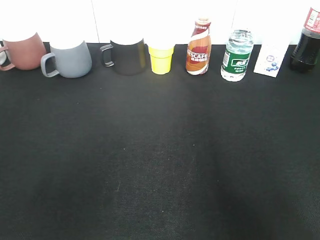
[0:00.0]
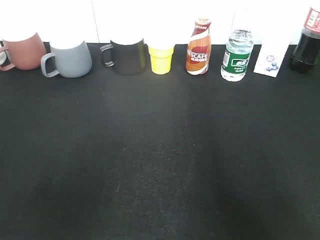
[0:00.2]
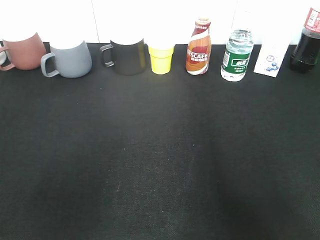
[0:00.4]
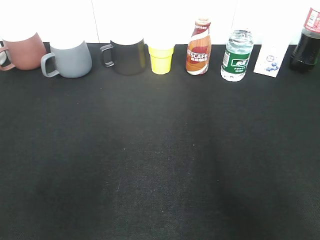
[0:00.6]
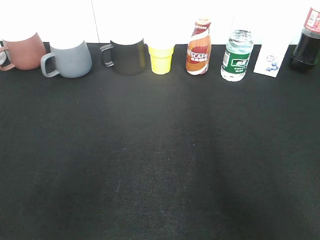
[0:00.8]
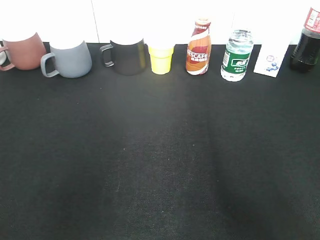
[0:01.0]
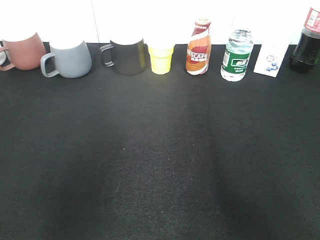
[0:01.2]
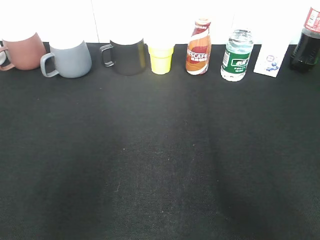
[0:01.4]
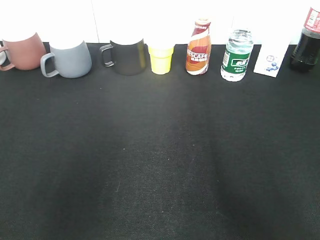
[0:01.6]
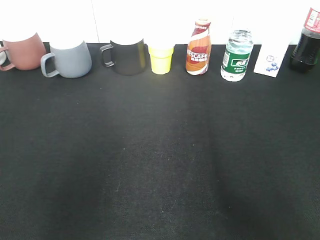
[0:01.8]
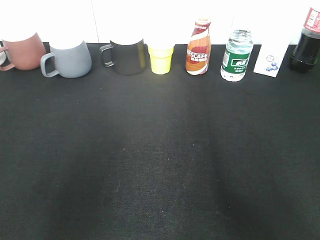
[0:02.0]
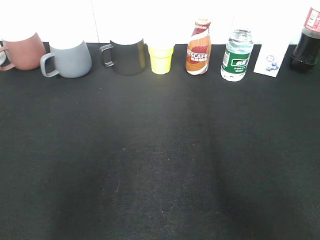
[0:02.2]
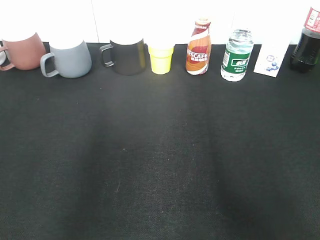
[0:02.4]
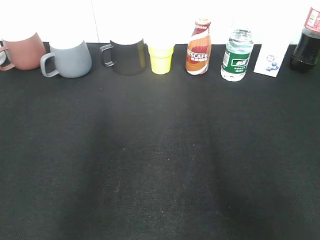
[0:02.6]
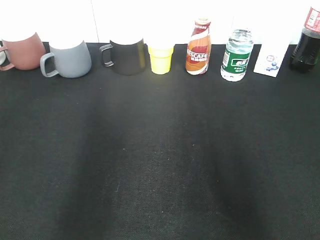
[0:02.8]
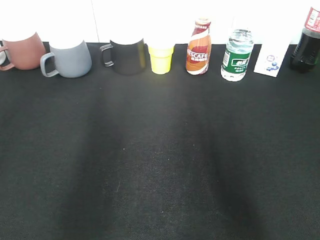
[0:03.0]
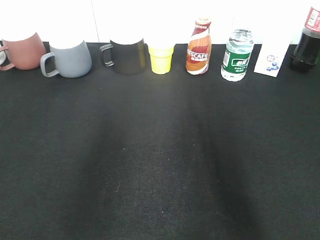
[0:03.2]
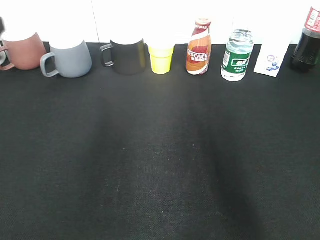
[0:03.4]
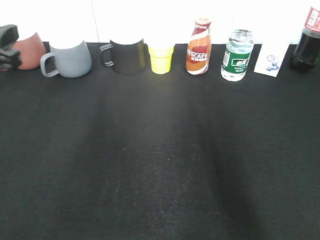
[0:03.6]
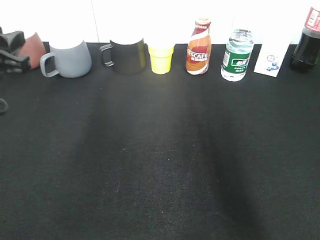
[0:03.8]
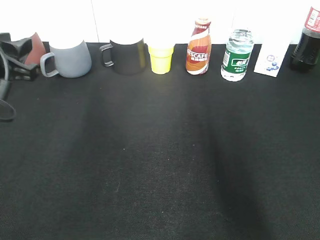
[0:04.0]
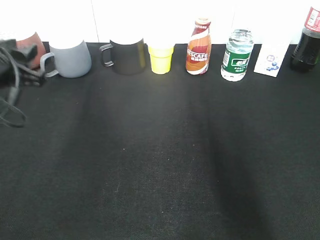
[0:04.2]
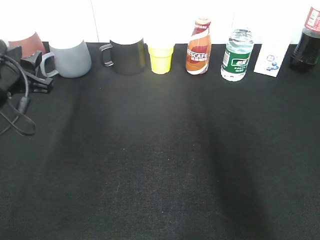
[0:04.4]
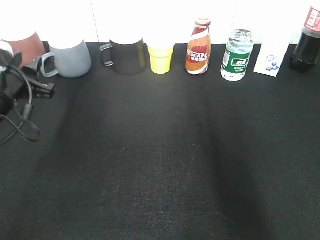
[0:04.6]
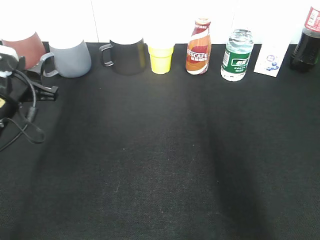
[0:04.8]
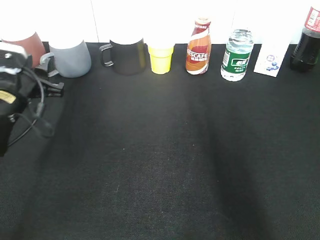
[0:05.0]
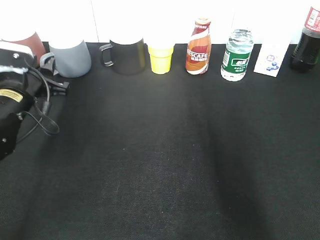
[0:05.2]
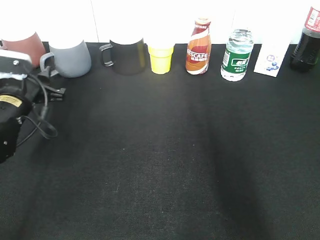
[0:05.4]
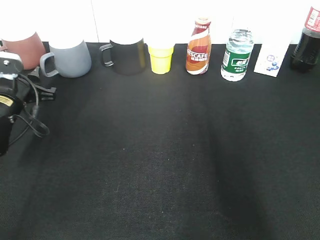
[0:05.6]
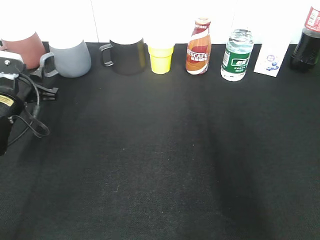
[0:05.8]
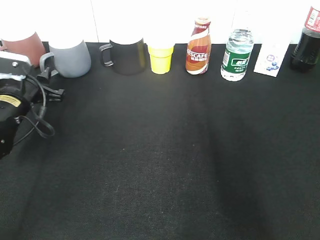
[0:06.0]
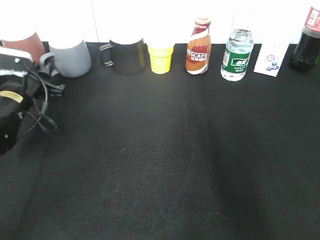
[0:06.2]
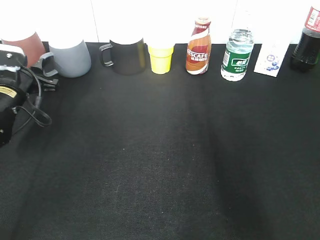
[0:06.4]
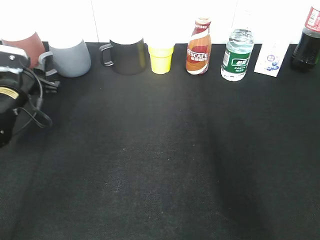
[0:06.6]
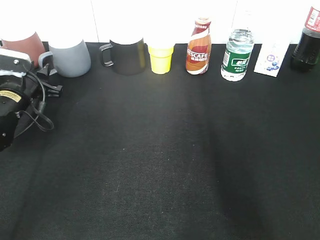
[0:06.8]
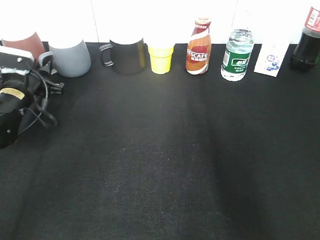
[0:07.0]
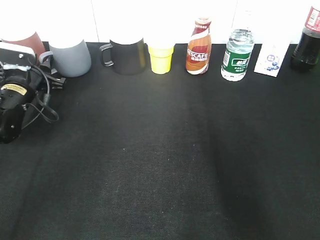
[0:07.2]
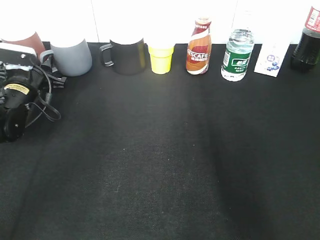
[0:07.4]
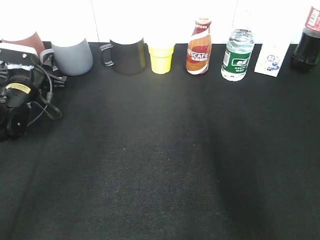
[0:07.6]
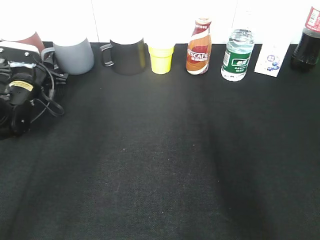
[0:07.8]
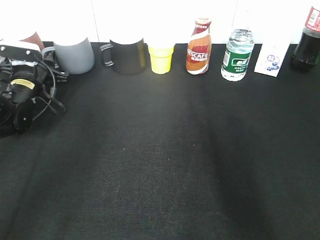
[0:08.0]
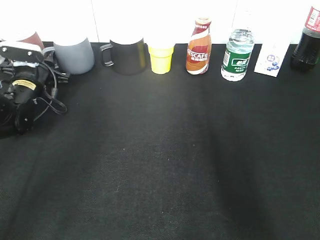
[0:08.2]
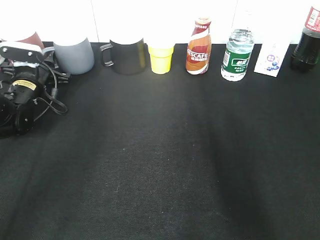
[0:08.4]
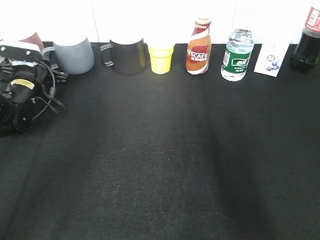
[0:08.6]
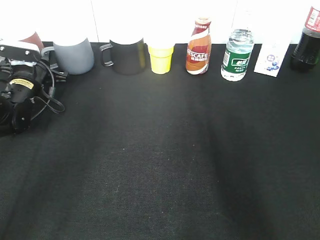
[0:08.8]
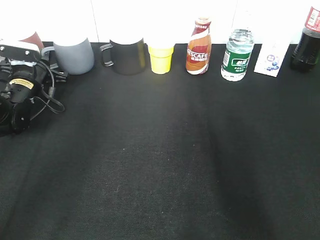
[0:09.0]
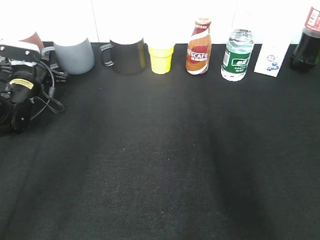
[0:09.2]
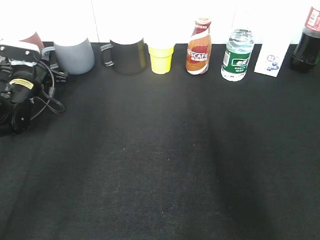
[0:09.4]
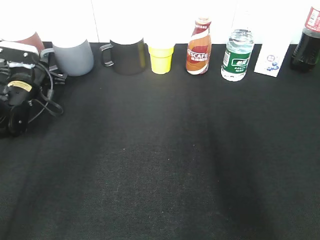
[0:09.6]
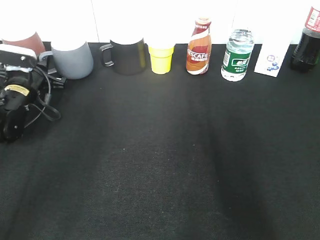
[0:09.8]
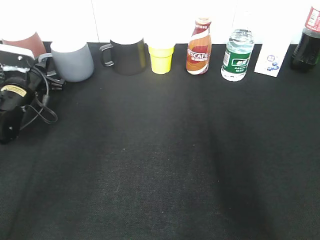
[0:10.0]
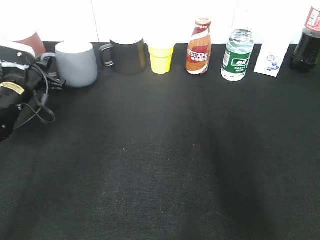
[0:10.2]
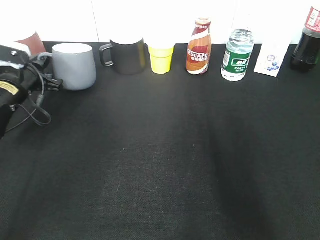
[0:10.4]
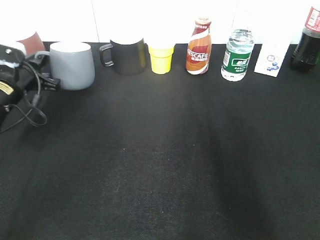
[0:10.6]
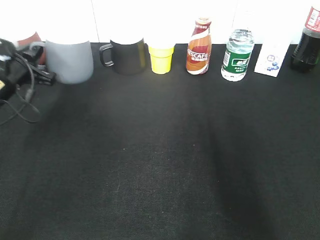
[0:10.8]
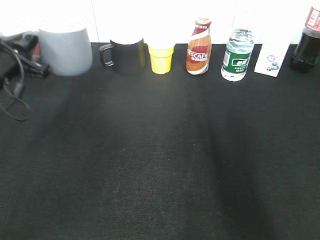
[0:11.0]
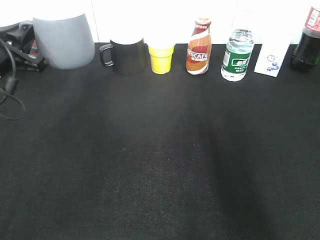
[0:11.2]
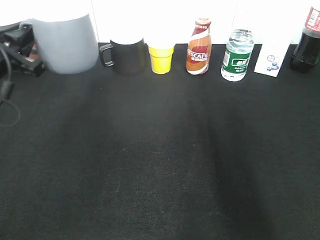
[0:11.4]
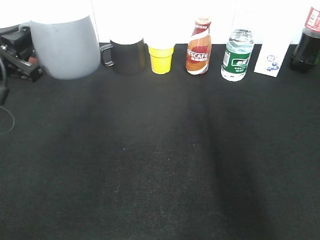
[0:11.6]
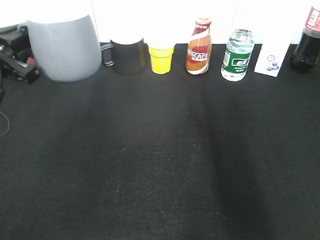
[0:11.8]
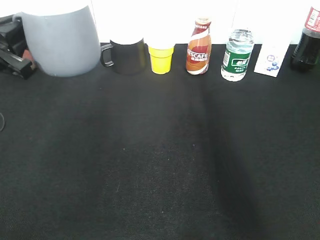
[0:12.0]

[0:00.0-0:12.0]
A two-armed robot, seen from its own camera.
Step, 0:02.0 to 0:10.0: Grasp the grey cup with left gripper.
Step, 0:10.2 to 0:11.8: Lift the grey cup with left gripper.
0:00.0 to 0:01.6: Both grippers stay put.
0:03.0 to 0:04.4: The left gripper is displaced forward and downward by some 20 cm.
0:04.4 to 0:06.0: The left gripper shifts about 10 cm downward and forward.
0:06.0 to 0:07.6: The left gripper travels forward by approximately 5 cm.
0:07.6 to 0:09.0: The left gripper closes its fingers.
0:09.0 to 0:10.4: The left gripper heads backward, covering about 5 cm.
0:10.4 to 0:12.0: The left gripper shifts roughly 15 cm backward and upward.

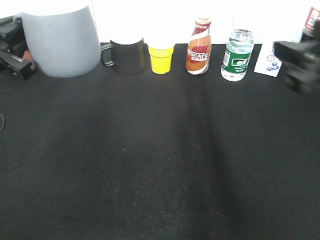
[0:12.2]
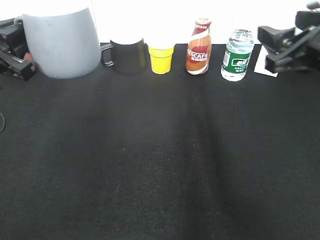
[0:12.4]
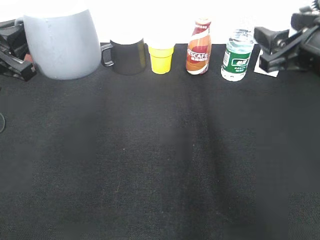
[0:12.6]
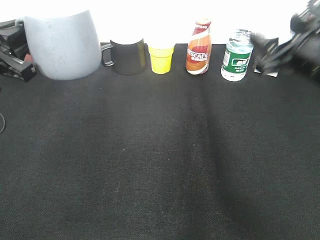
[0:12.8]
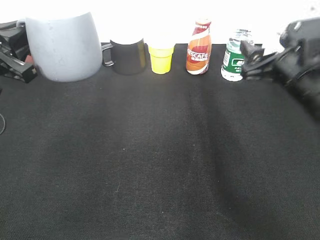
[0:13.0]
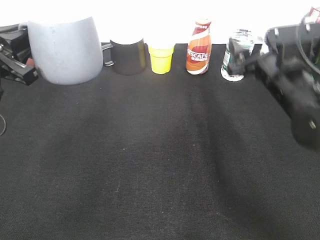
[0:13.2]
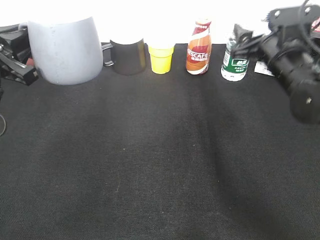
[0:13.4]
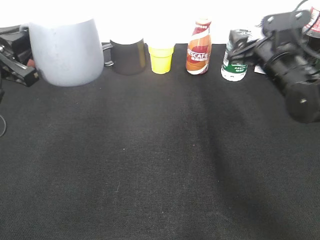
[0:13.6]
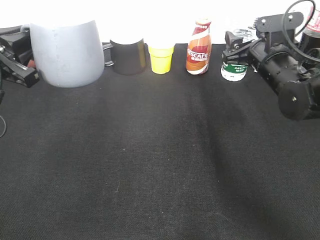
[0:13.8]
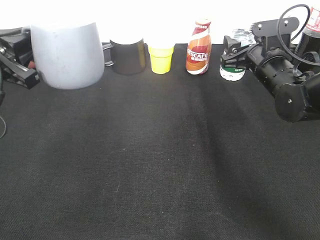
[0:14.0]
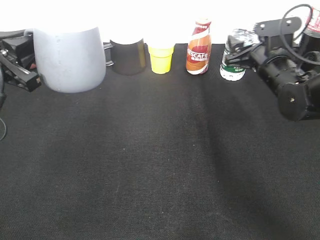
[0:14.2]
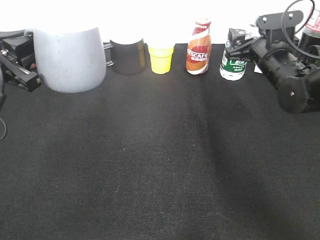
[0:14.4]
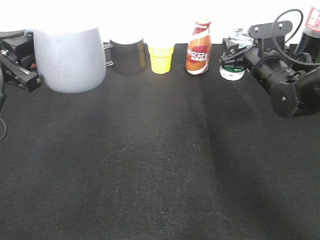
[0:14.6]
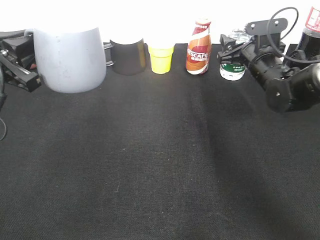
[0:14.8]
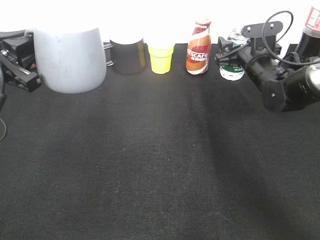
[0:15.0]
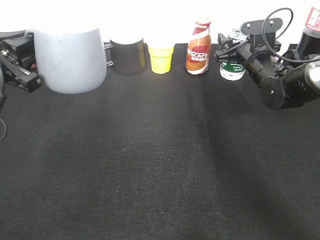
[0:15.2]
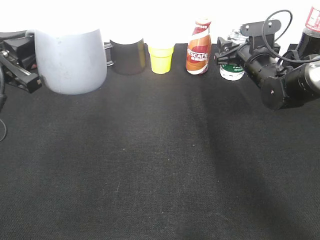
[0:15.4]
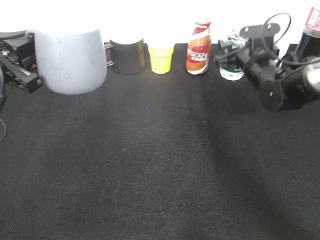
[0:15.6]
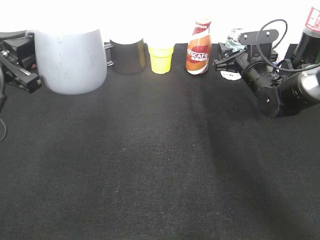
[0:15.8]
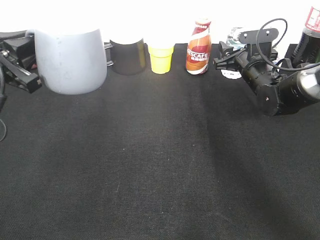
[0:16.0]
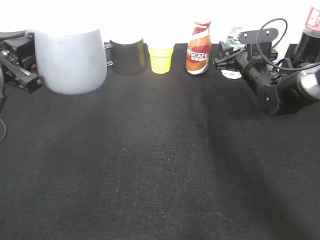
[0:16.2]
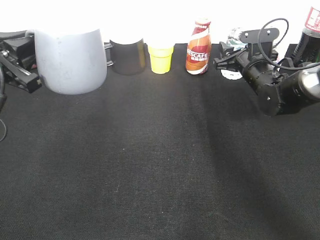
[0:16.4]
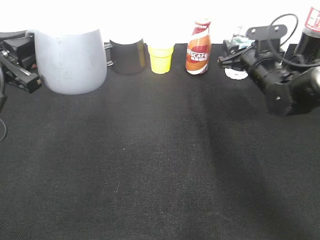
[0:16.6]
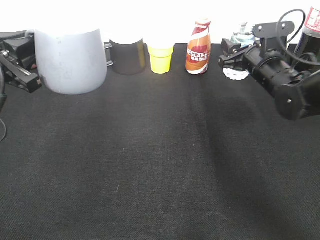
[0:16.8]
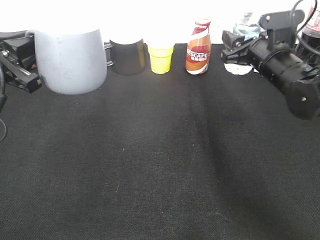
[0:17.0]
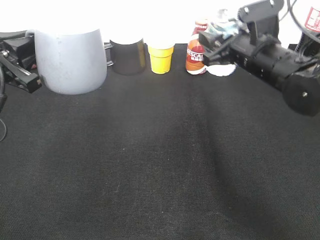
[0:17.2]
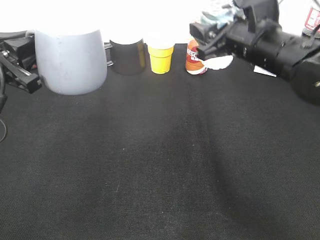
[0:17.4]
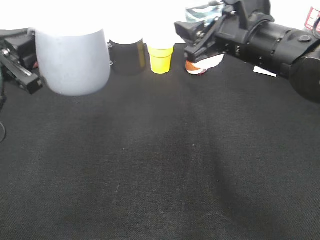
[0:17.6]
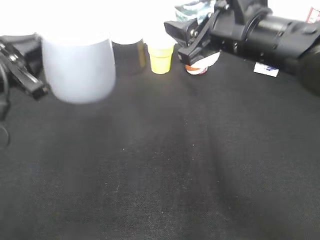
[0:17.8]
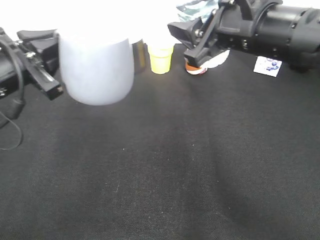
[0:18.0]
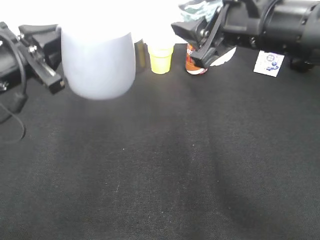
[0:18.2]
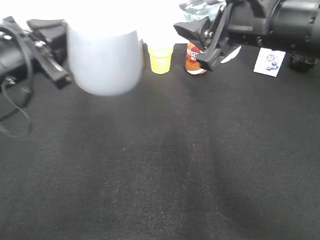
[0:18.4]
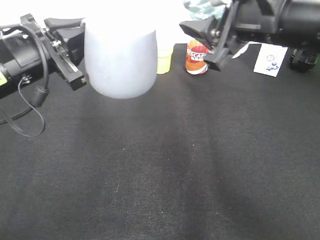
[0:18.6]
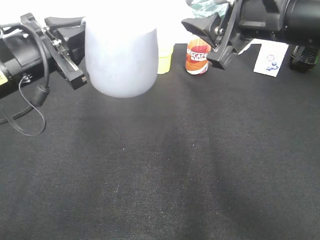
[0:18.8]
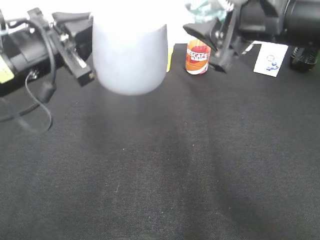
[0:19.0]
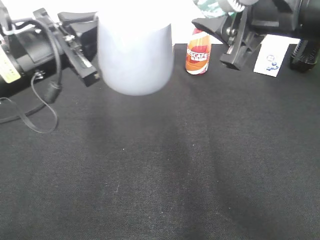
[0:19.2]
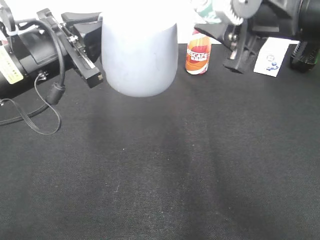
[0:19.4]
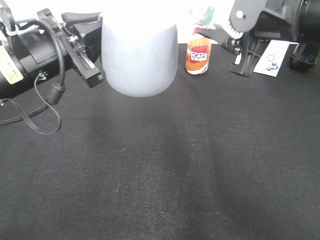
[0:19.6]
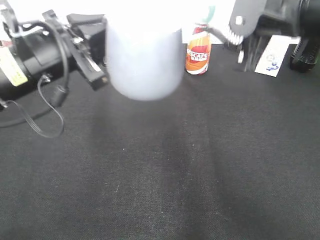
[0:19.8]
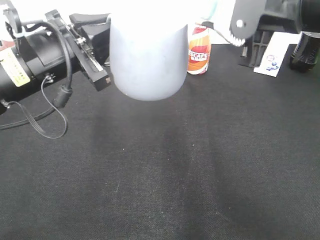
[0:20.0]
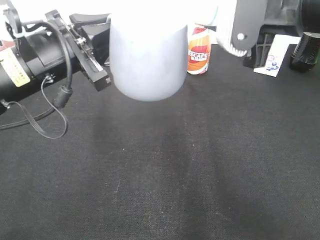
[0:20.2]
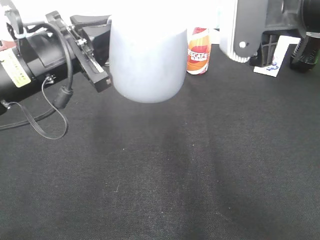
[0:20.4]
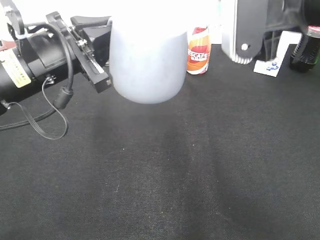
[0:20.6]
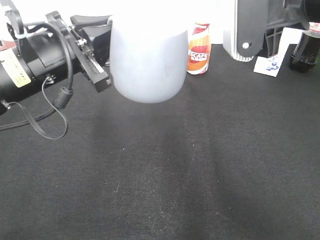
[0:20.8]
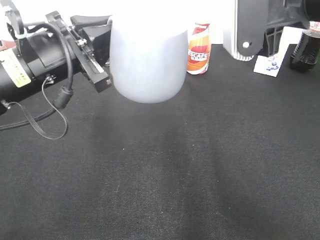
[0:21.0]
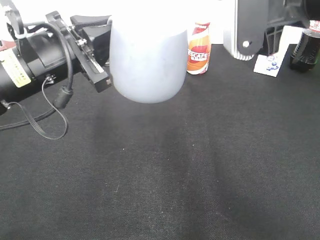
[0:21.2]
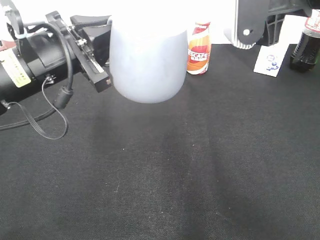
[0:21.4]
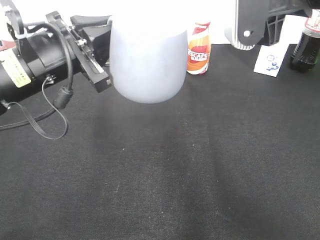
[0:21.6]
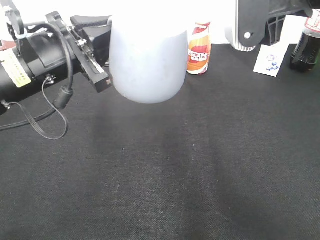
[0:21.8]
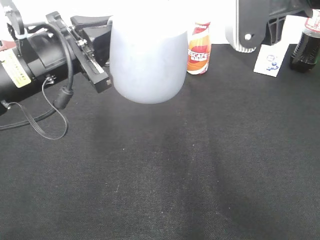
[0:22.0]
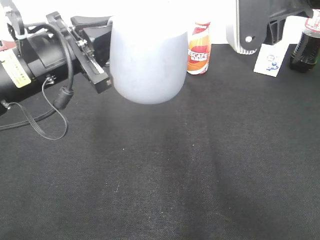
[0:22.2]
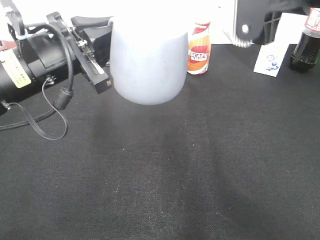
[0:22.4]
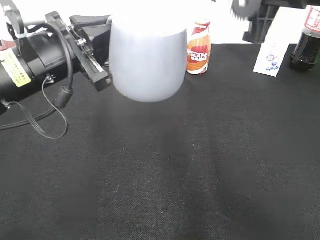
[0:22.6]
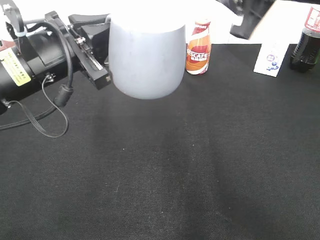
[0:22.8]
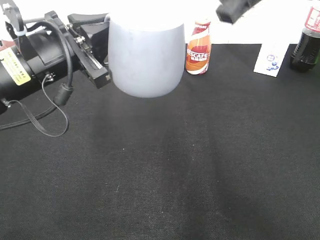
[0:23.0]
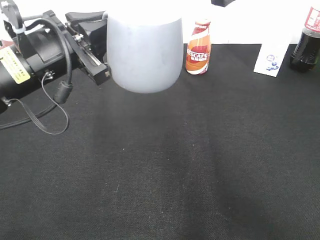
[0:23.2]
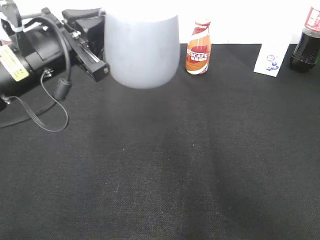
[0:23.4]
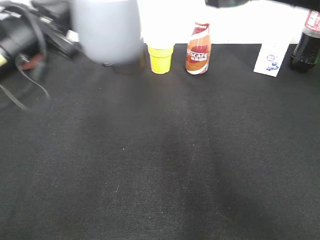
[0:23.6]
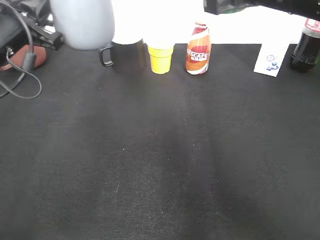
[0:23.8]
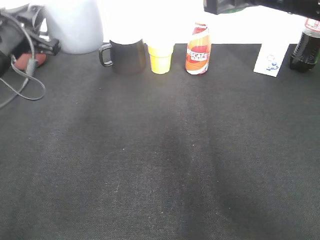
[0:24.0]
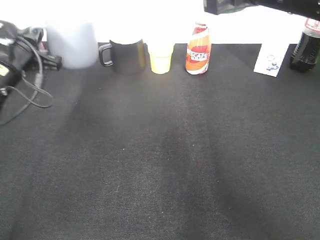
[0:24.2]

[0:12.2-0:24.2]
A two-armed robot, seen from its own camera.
Step, 0:12.2 to 0:16.0: Grasp the bottle with water with right gripper.
Step, 0:16.2 to 0:23.2: Pour the water from bottle to cup with right gripper.
0:12.2 to 0:13.8: The right gripper goes roughly 20 cm forward and downward, and opens its fingers.
0:13.8 to 0:15.2: The right gripper goes roughly 5 cm forward.
0:15.2 to 0:16.6: The right gripper closes up.
0:16.6 to 0:18.2: The right gripper travels upward, backward and to the left by approximately 25 cm.
0:18.2 to 0:19.8: The left gripper heads to the right, covering about 5 cm.
0:21.2 to 0:22.6: The grippers stay close to where they were, moving slightly.
0:22.6 to 0:24.2: The left gripper travels to the left, forward and downward by some 15 cm.
